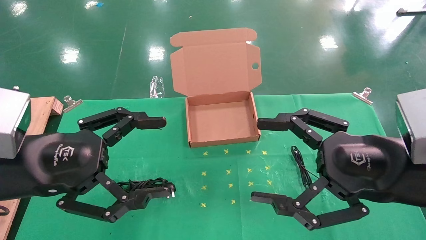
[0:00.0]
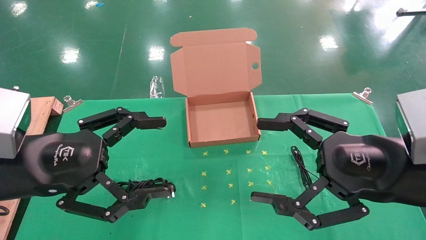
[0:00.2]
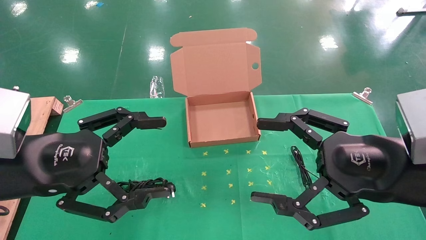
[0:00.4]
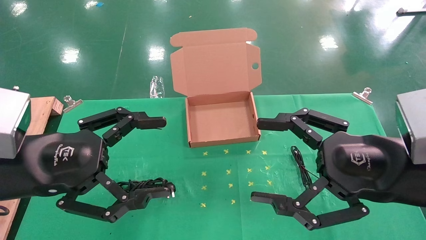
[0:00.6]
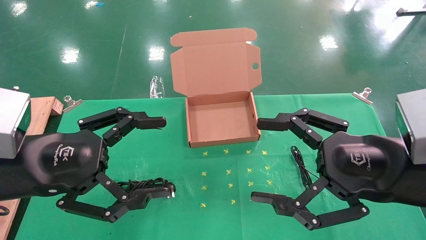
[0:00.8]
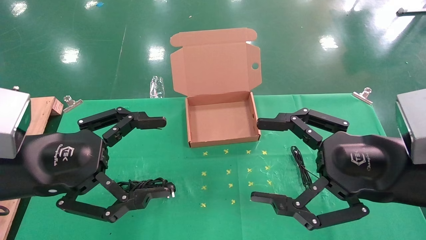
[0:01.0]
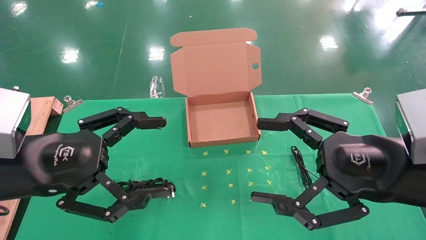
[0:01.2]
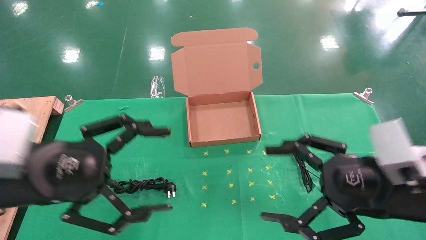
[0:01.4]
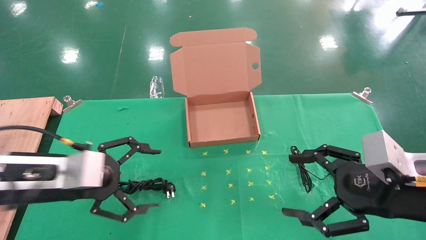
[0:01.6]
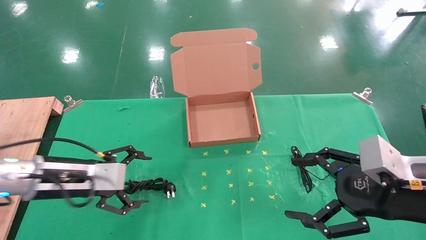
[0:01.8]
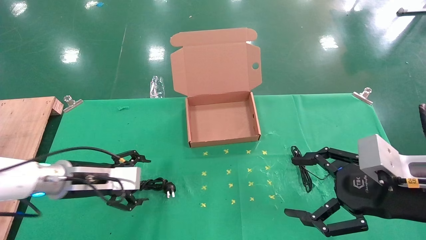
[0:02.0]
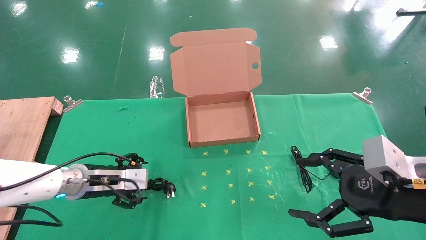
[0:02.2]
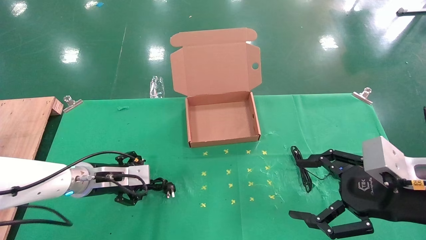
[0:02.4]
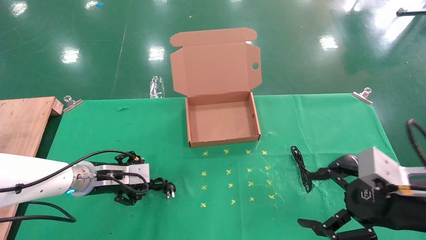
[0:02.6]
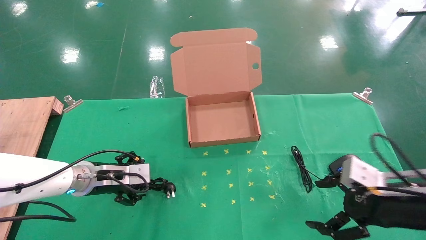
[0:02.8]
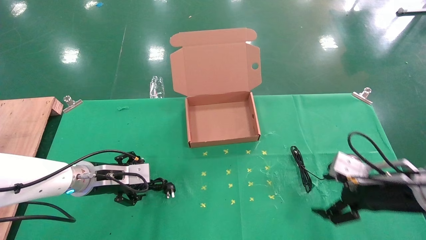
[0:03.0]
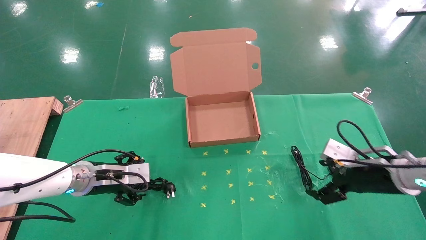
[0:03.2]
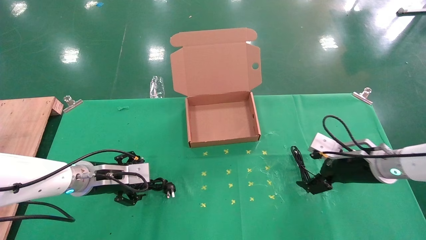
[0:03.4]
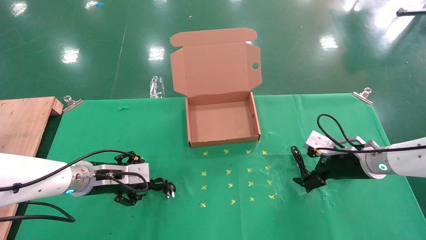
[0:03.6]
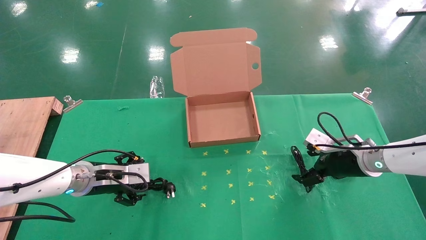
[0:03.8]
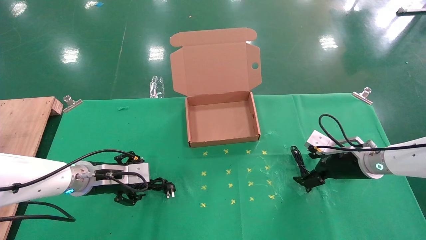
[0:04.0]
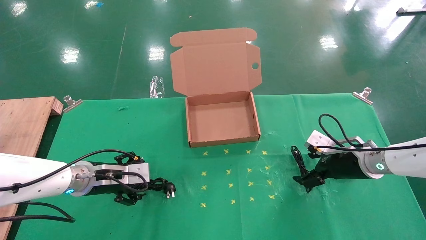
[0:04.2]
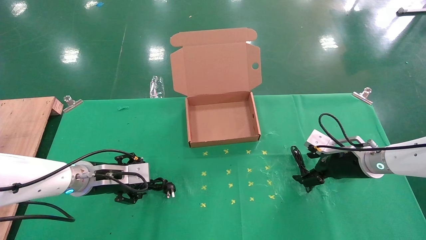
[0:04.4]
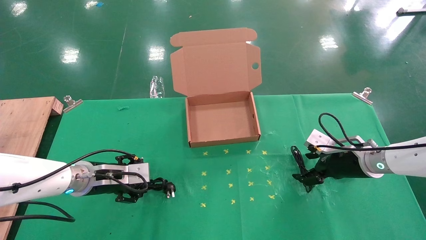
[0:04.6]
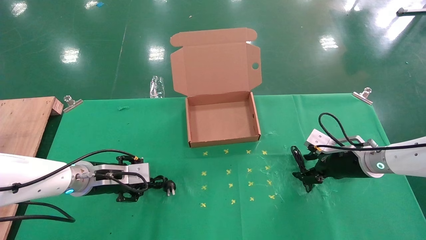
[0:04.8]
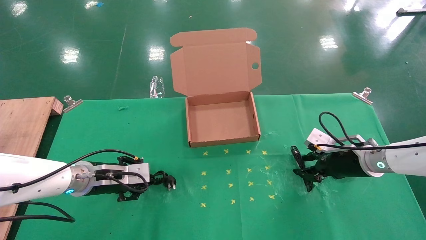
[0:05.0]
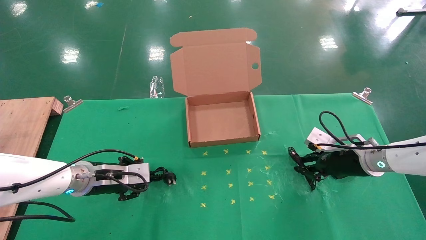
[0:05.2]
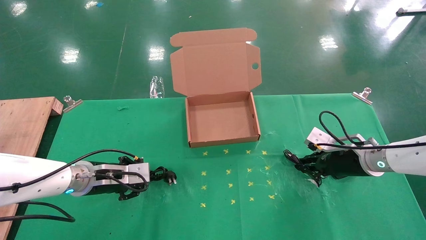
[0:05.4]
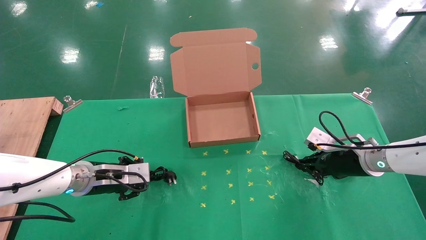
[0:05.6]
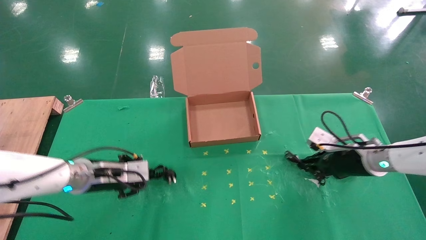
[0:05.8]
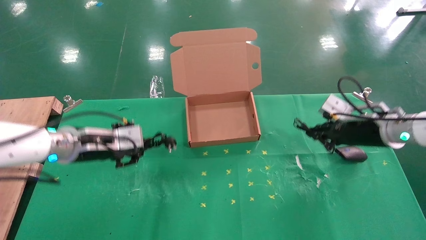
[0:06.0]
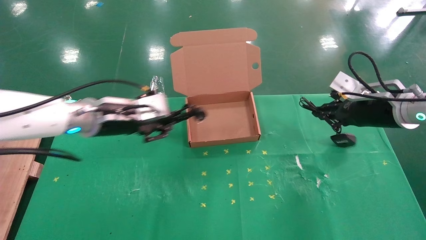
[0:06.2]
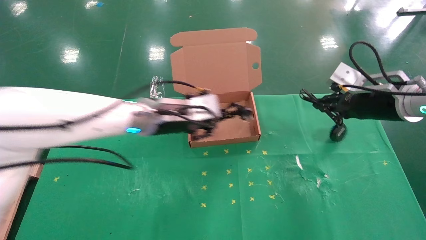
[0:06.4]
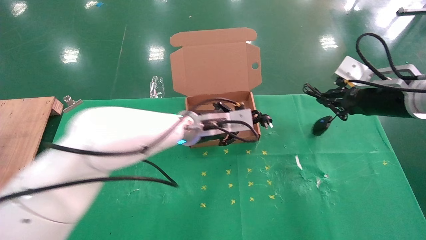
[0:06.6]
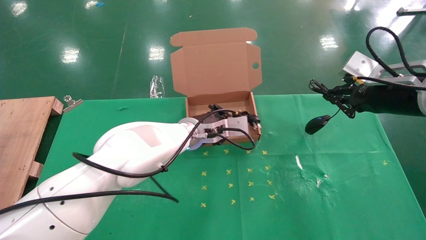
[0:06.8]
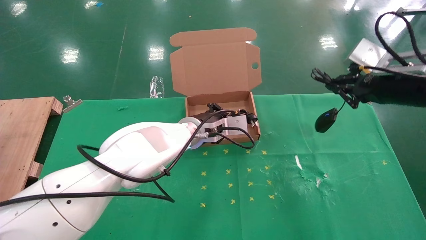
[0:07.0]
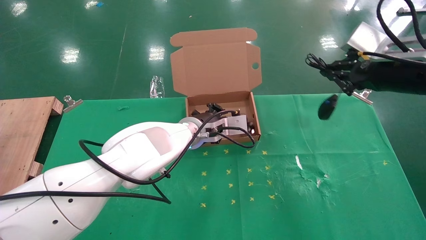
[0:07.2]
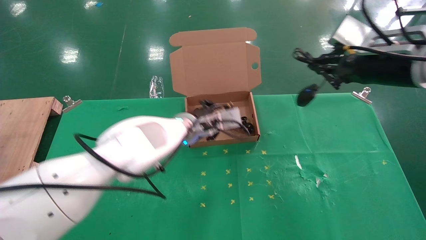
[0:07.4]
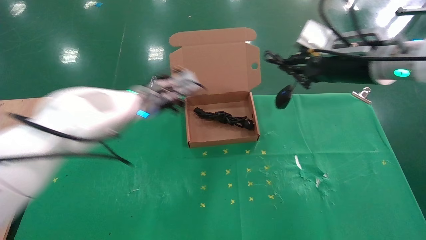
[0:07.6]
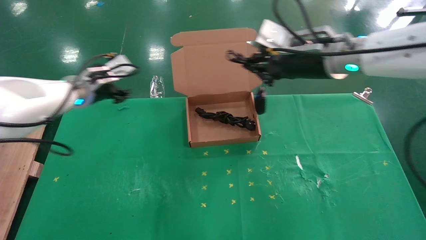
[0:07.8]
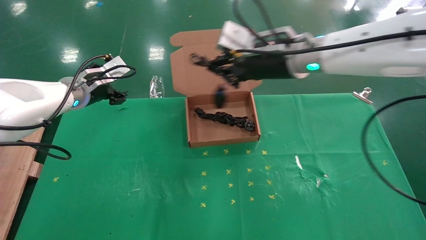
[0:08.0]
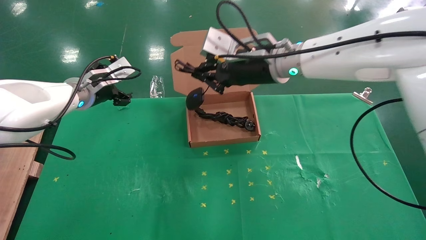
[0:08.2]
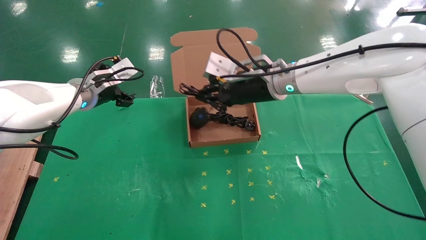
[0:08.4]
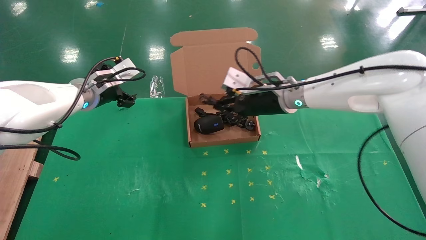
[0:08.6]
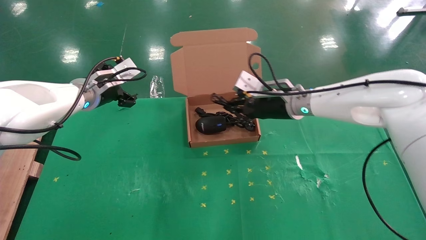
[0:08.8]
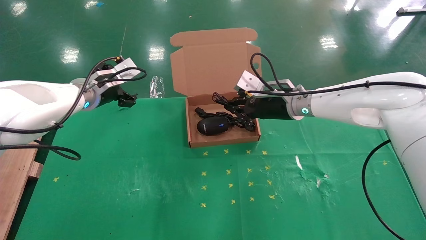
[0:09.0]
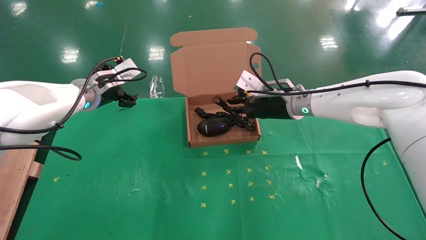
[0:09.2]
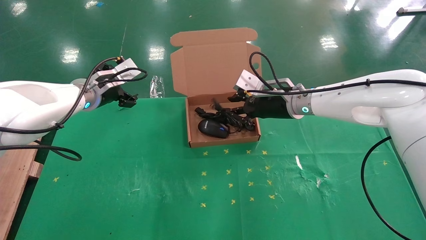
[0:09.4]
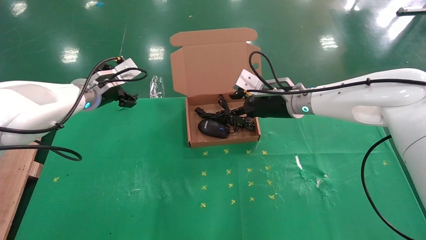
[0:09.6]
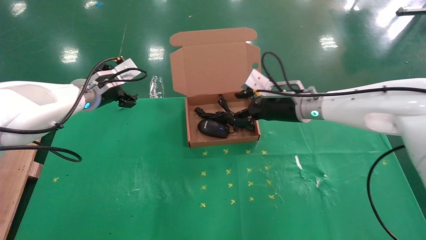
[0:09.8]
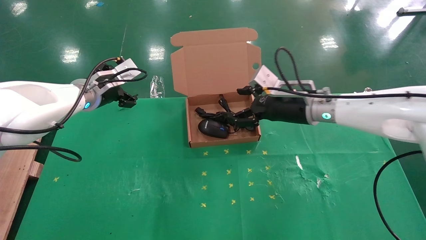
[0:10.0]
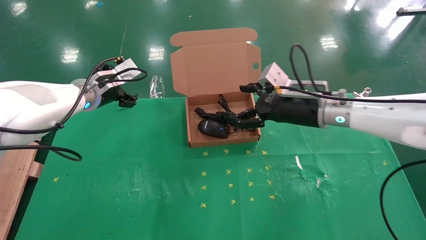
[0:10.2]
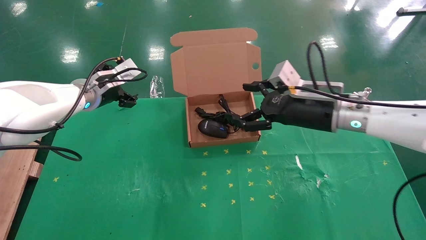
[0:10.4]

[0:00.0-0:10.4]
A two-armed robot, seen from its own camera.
Task of the whole recording: grasp data cable left put into box grasp mouse right put into box.
Step, 0:01.6 to 0:05.6: Simultaneously pick up the mouse and power cord from the accessory packaging area.
Step, 0:05.8 to 0:09.4: Place the mouse and power cord into the box.
0:01.4 to 0:03.0: The right gripper shifts approximately 15 cm forward, downward and to the right, while the left gripper moves forward and downward, roughly 20 cm.
0:03.0 to 0:04.4: The right gripper travels forward by approximately 10 cm.
0:04.4 to 0:06.0: Both grippers move upward, some 10 cm. The left gripper closes up. Meanwhile the right gripper closes up.
0:06.0 to 0:07.4: The left gripper heads to the right and forward, covering approximately 20 cm, while the right gripper shifts about 15 cm upward.
0:07.4 to 0:09.0: The left gripper is displaced to the left by roughly 20 cm, and opens its fingers. Meanwhile the right gripper shifts some 20 cm to the left, forward and downward.
0:09.0 to 0:10.4: The right gripper shifts about 10 cm backward and to the right, and opens its fingers.

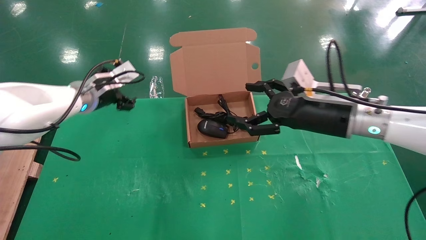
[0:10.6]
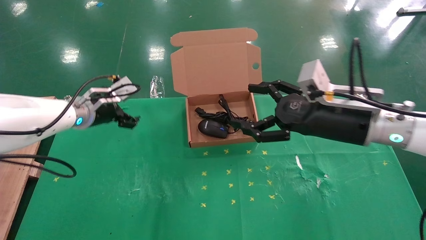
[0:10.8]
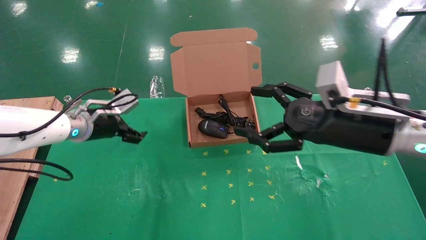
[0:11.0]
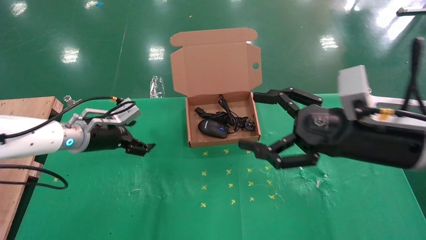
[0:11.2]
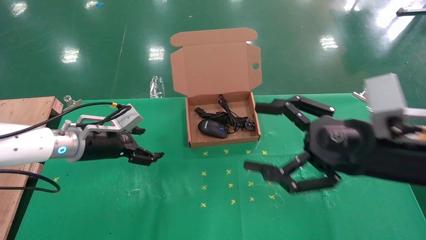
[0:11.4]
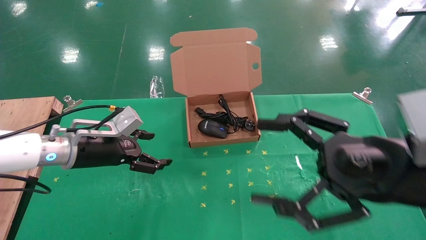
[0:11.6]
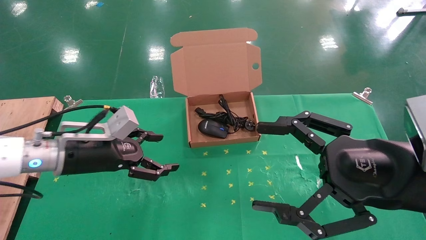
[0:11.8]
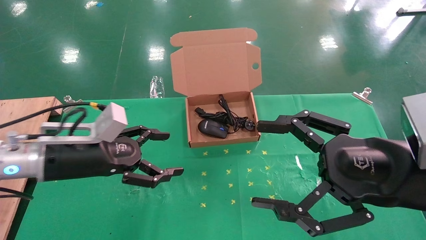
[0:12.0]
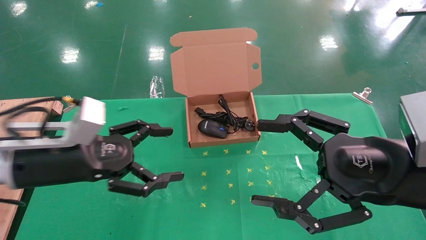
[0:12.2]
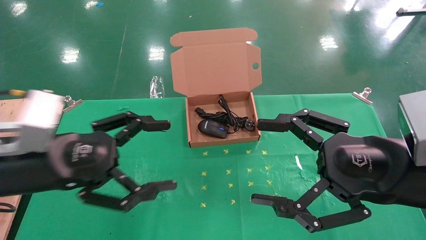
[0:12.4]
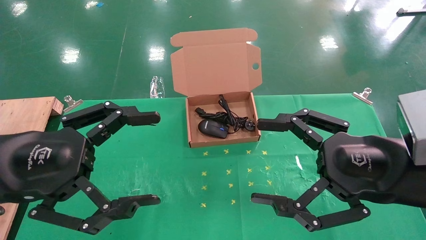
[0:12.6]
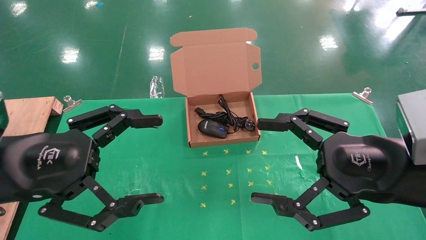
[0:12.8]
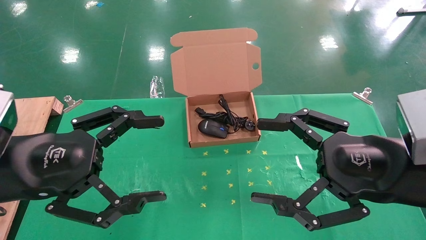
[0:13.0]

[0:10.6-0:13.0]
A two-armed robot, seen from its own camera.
Task of the whole recording: grasp data cable left put into box grasp mouse right put into box.
0:10.6 to 0:11.8: Both grippers travel together backward, approximately 15 cm.
0:11.8 to 0:13.0: The left gripper travels backward and upward by approximately 15 cm.
